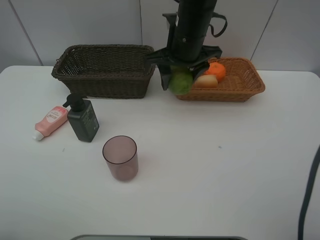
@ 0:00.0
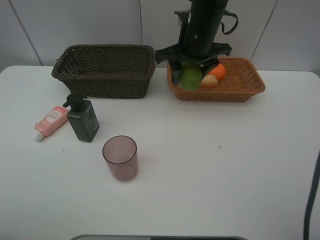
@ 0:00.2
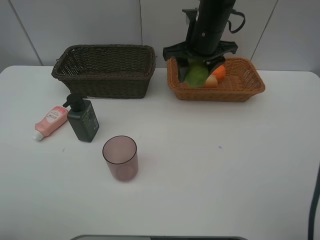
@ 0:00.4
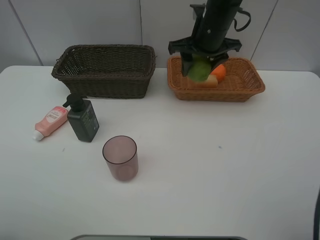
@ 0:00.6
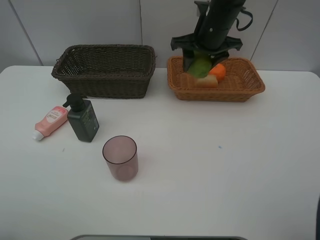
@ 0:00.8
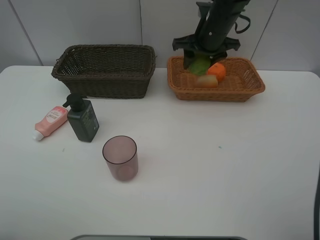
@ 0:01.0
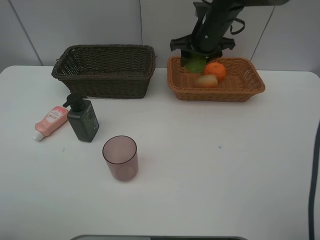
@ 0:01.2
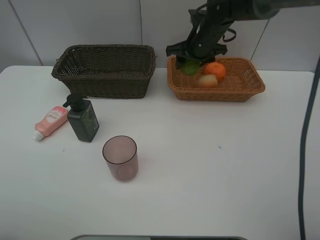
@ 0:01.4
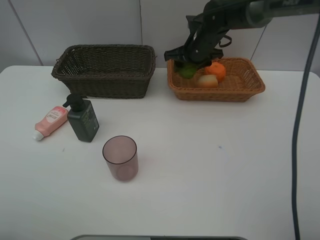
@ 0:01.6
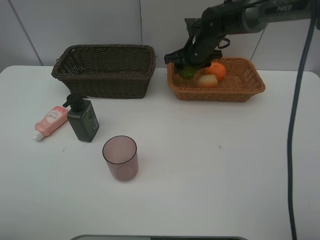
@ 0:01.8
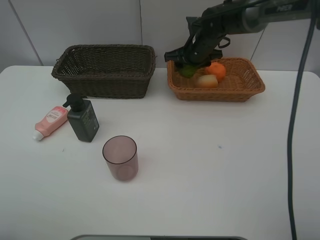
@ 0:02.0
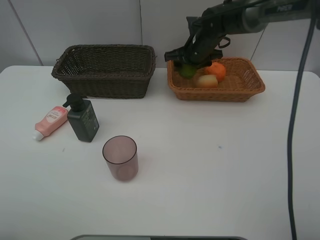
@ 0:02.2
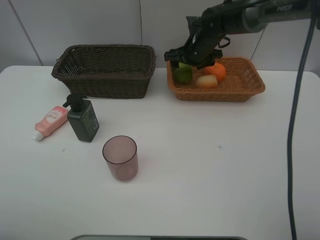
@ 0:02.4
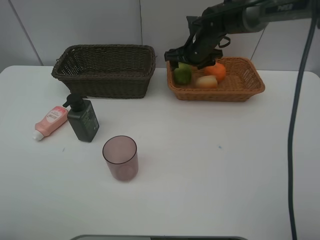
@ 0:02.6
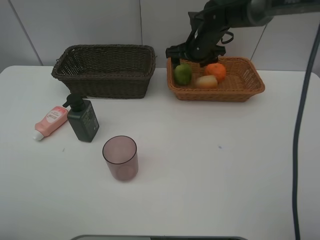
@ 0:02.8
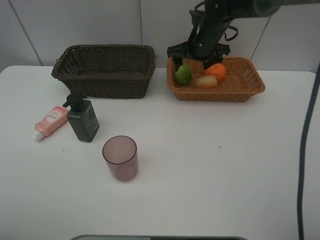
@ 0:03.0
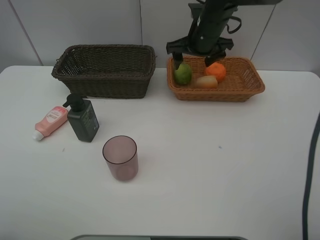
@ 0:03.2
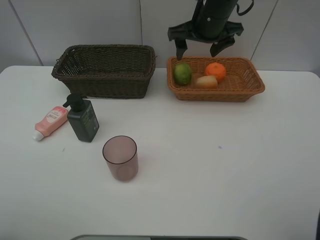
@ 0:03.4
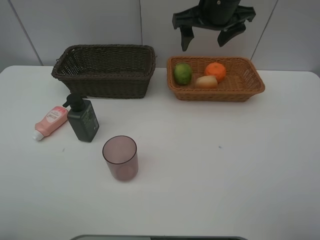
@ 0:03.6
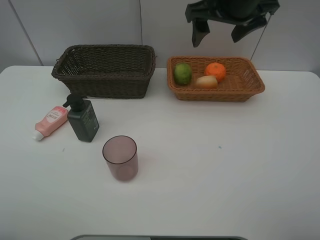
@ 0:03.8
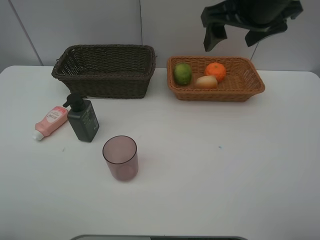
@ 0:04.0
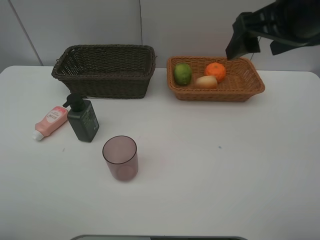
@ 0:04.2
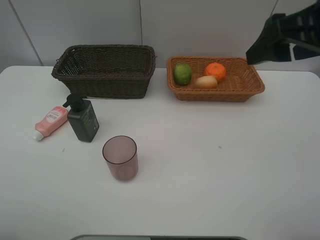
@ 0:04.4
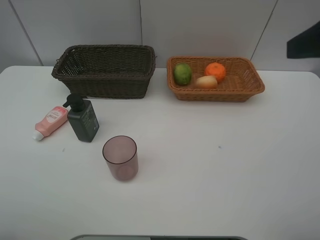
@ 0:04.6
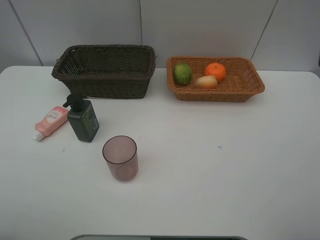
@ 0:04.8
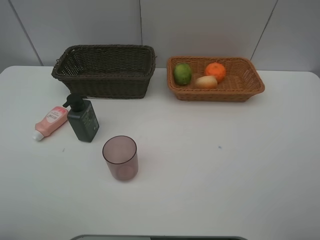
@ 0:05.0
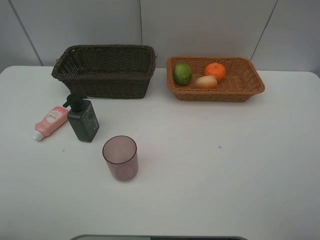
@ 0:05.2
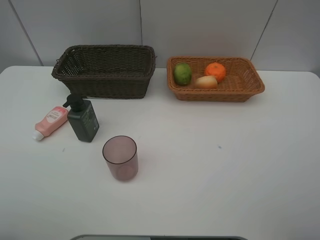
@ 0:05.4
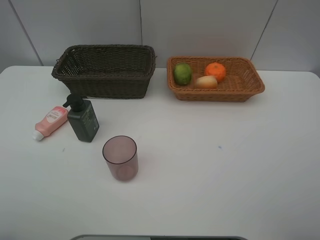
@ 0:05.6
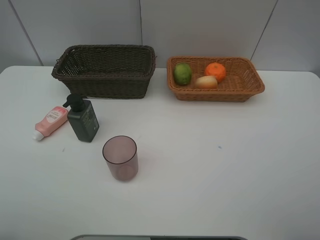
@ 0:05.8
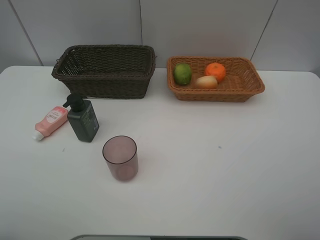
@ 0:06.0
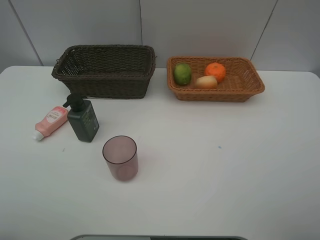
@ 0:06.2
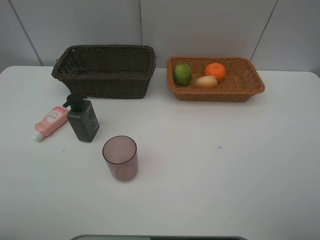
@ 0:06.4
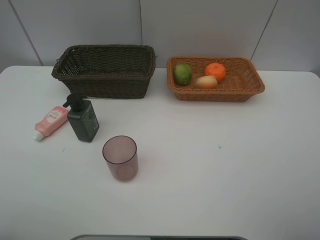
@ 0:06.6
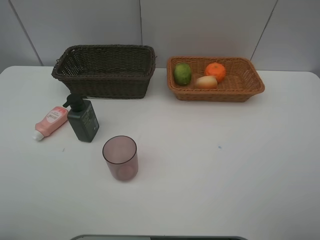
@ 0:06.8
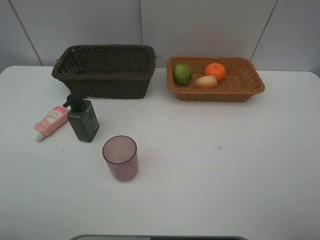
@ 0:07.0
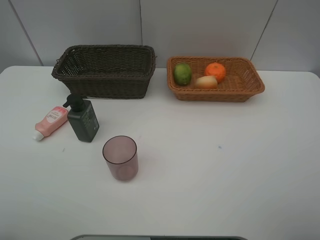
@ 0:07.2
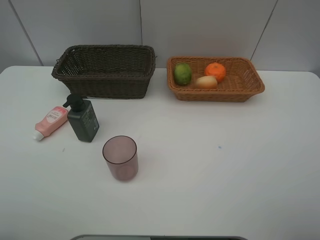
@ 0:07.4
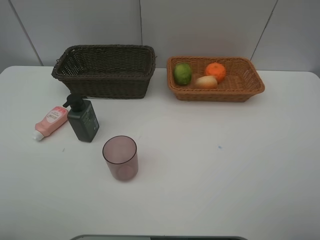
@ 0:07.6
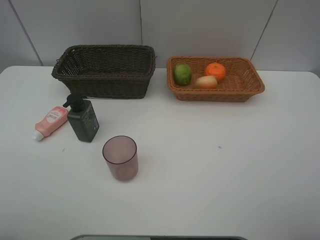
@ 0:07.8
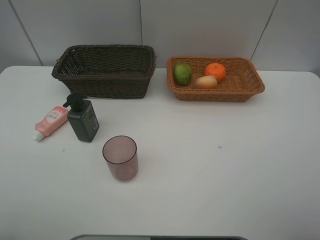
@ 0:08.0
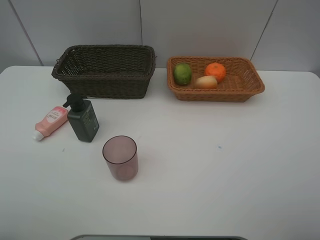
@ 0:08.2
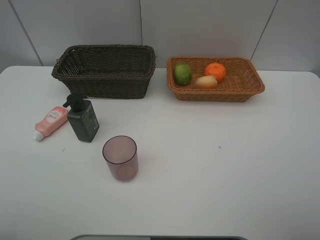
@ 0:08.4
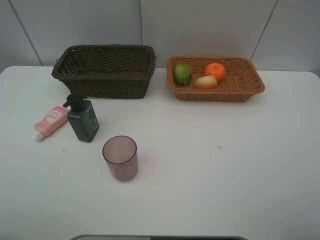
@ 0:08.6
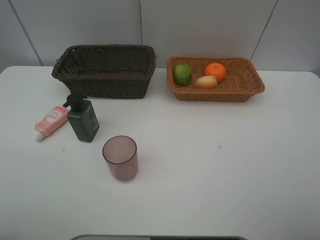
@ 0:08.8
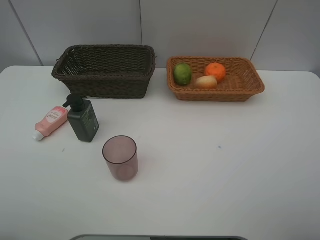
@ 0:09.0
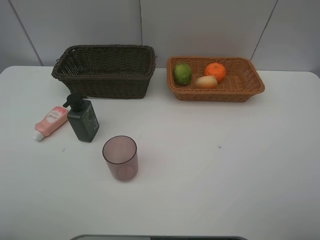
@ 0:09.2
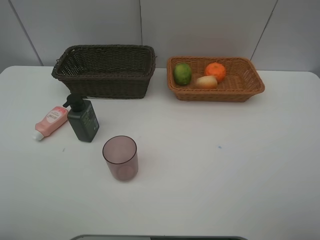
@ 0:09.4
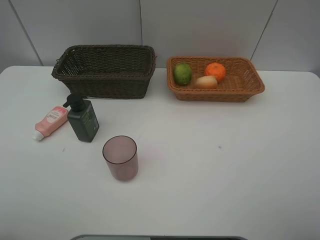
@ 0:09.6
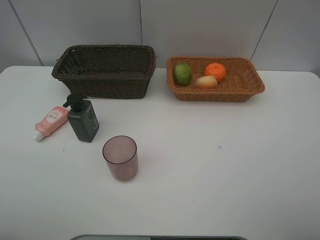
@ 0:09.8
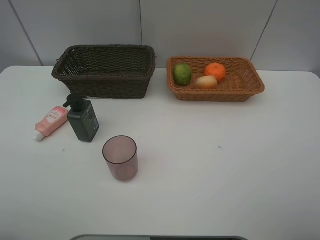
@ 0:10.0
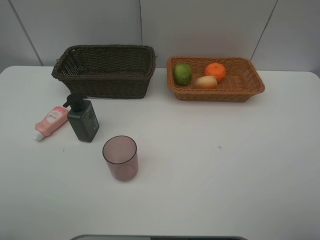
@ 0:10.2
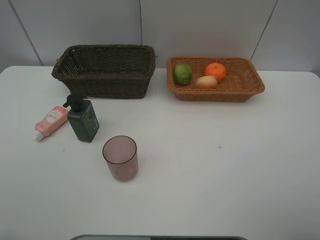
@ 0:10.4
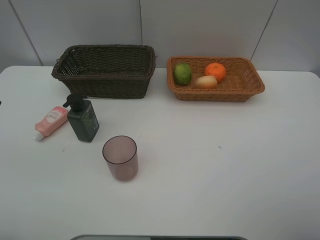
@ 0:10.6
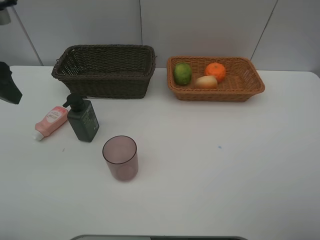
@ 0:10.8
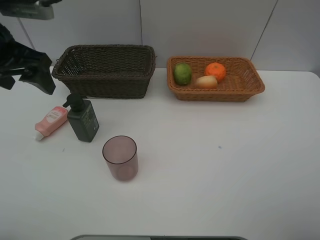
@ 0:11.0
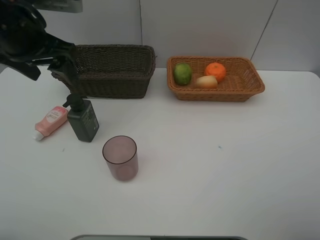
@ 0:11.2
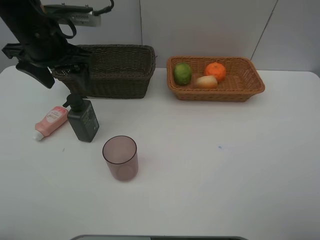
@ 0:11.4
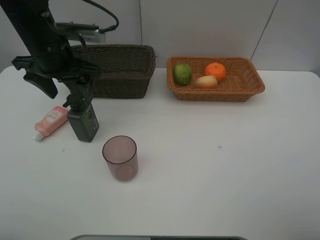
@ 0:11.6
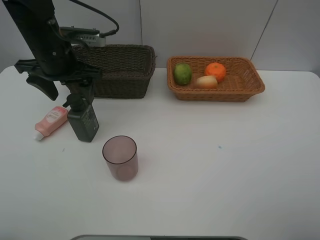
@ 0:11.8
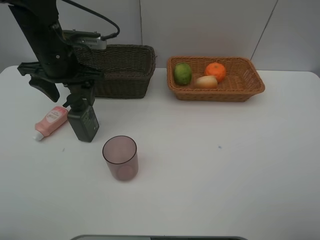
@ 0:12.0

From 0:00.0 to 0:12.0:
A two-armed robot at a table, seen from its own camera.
Task of the whole recording: place multiple objects separately in different baskets.
From 0:00.0 to 0:01.6: The right gripper moves forward, downward and to the right, about 15 cm.
From 0:01.6 to 0:03.0: The right gripper opens its fingers.
From 0:03.0 to 0:04.4: The right gripper travels backward, upward and to the right by approximately 30 cm.
From 0:04.4 to 0:06.0: The right gripper moves backward and to the right, roughly 20 cm.
From 0:10.4 to 0:12.0: The left gripper shifts some 25 cm forward and to the right.

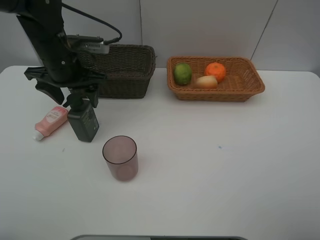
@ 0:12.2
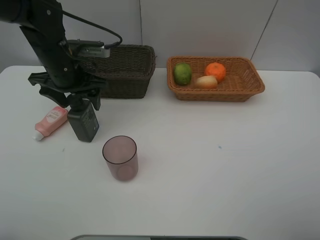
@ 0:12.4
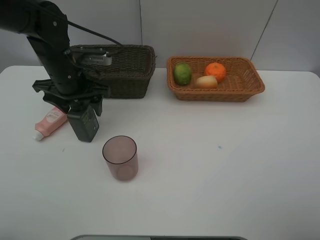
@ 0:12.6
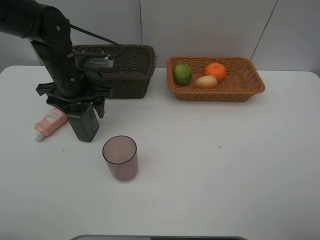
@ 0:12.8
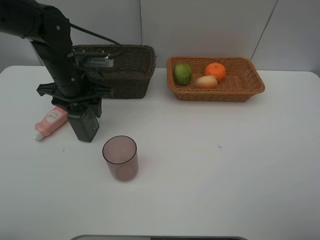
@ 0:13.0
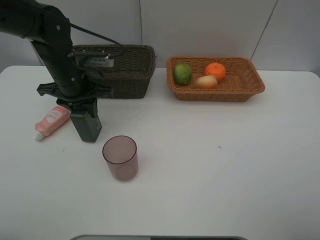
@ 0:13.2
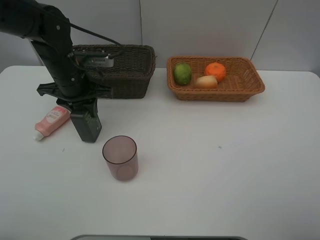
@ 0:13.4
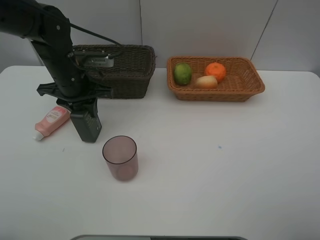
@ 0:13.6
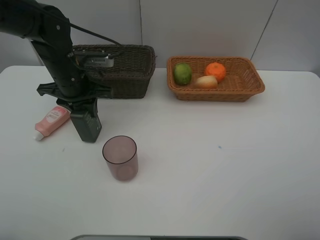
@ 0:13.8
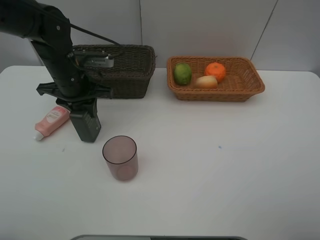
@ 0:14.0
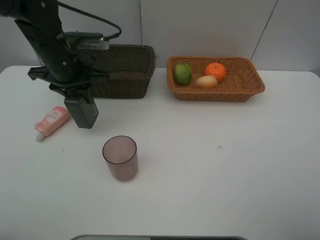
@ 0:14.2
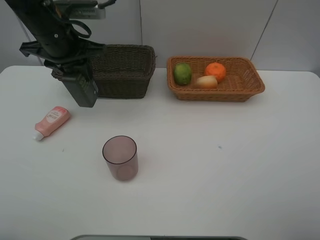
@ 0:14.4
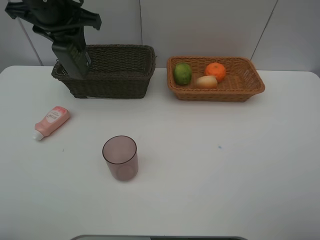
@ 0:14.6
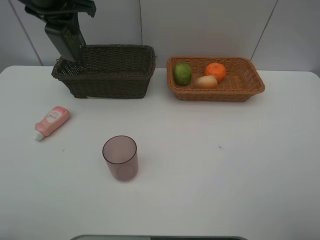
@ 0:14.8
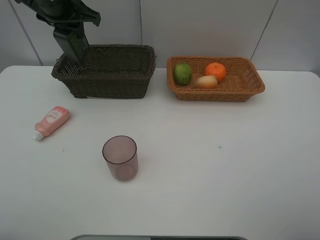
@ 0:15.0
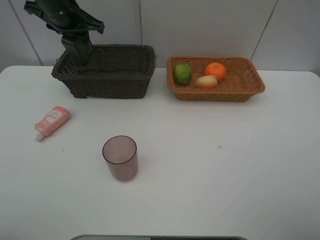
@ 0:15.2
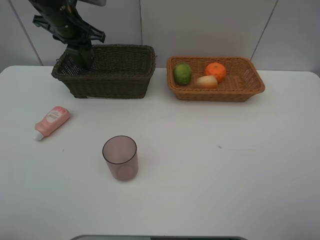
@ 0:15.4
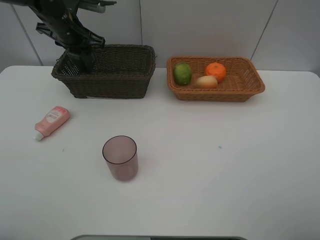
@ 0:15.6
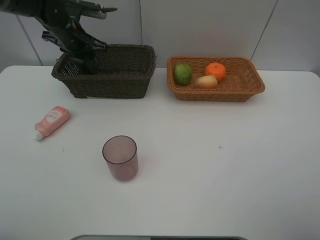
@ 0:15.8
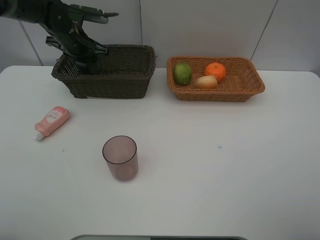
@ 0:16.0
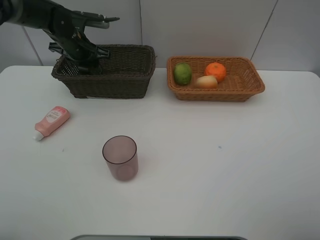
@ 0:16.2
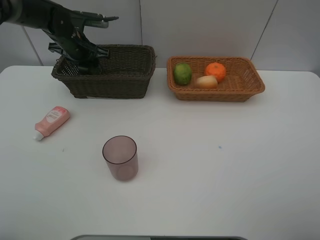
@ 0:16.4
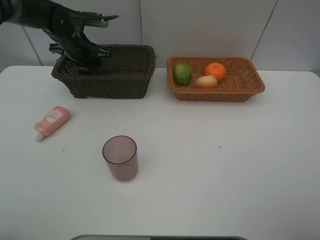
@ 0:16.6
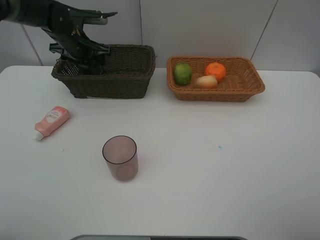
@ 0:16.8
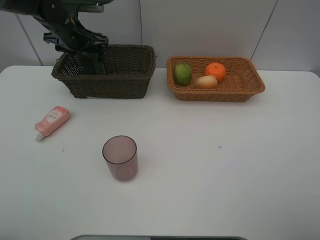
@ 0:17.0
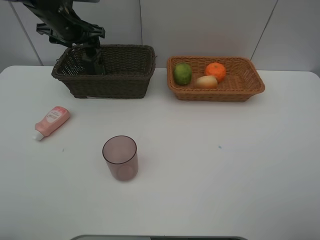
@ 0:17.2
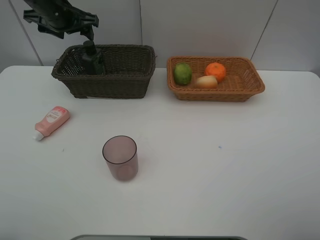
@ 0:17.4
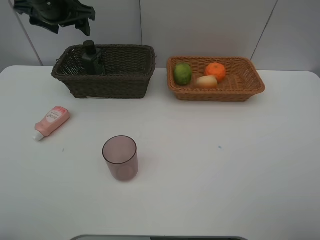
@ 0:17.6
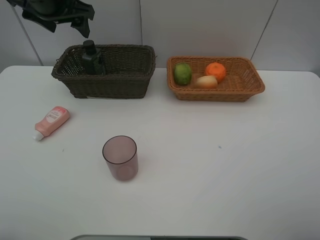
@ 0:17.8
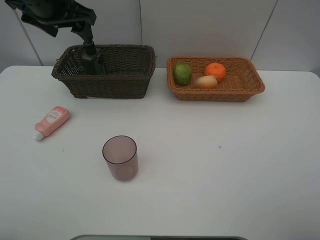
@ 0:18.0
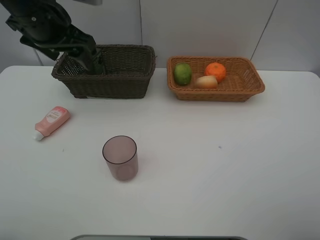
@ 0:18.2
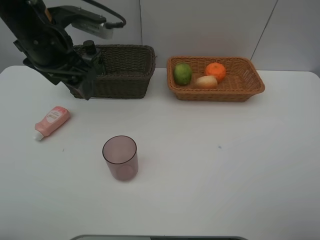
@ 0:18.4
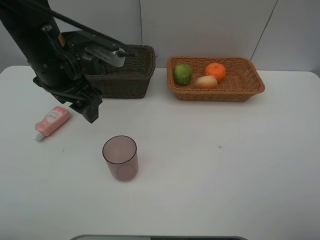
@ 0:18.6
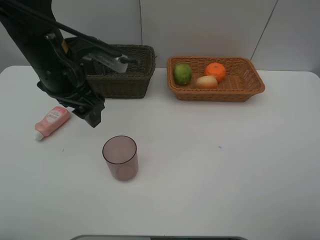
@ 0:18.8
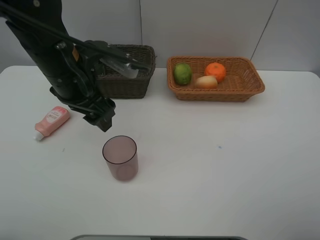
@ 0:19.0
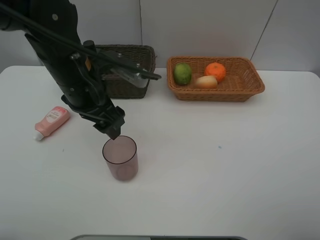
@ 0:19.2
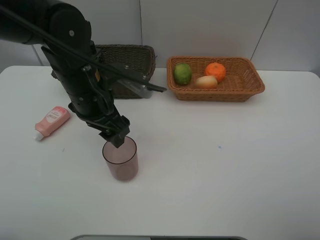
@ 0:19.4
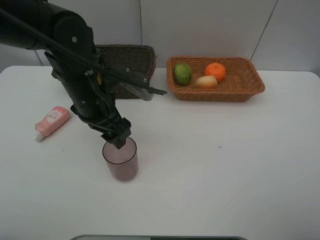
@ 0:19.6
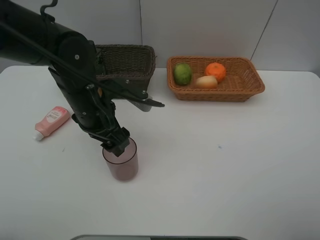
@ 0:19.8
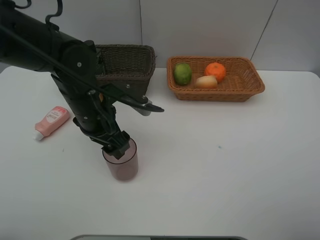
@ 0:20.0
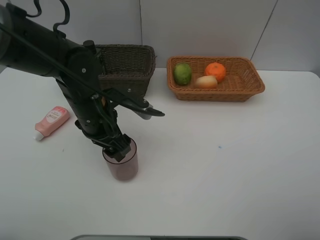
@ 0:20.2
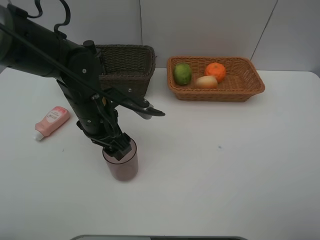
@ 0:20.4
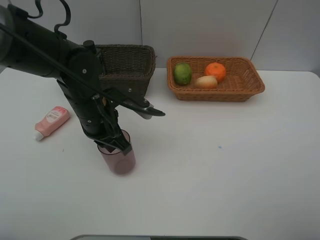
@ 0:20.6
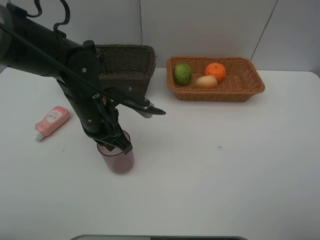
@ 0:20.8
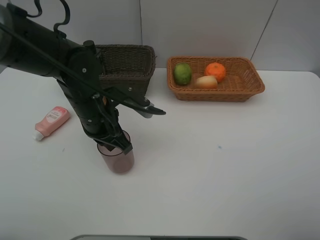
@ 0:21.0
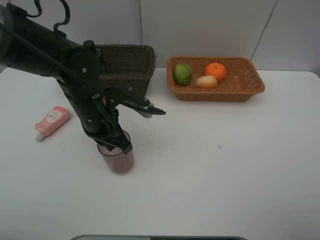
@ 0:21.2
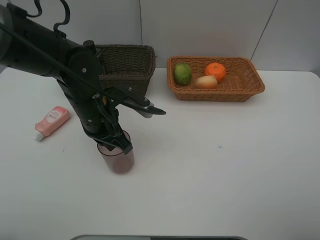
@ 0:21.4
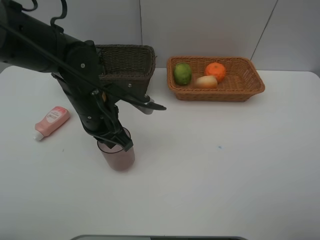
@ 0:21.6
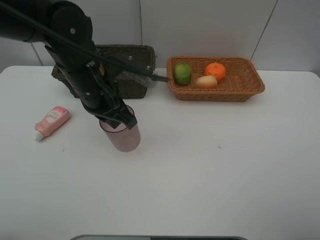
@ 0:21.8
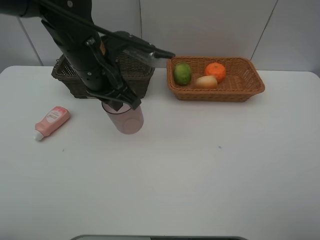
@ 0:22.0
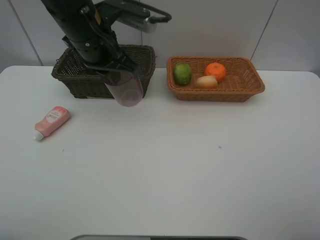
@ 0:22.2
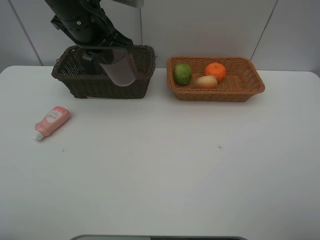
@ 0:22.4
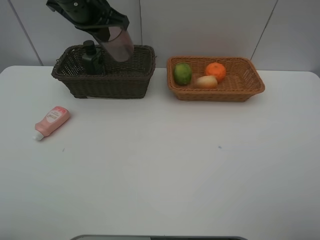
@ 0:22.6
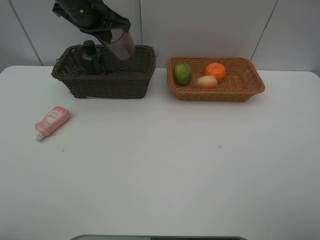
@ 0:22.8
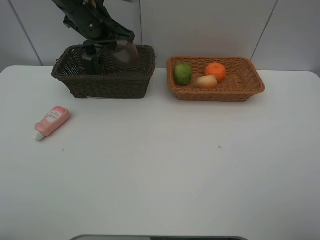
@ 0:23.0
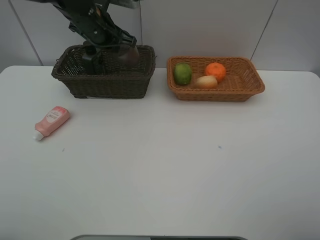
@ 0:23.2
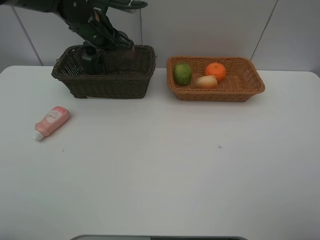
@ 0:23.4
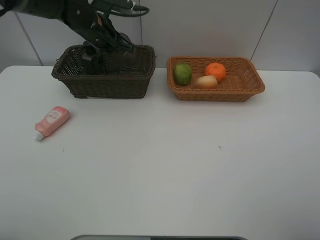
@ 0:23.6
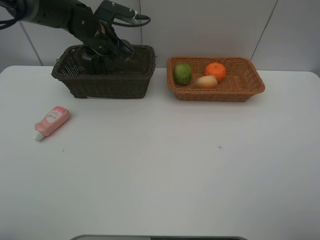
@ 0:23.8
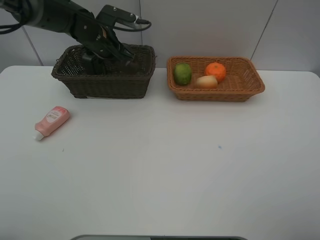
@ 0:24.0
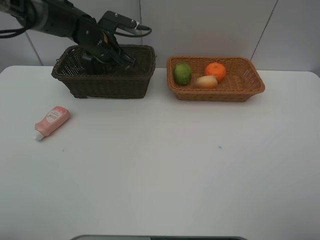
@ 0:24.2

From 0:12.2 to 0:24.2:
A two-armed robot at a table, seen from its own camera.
Task of the whole recording: place multiple objects separately in different baskets.
From 0:12.2 to 0:13.8: The left gripper closes its fingers.
From 0:13.8 to 0:15.2: The left gripper heads upward and forward, covering roughly 15 cm.
From 0:15.2 to 0:16.6: The left gripper travels downward by roughly 10 cm.
From 0:16.6 to 0:18.2: The left gripper travels backward and upward by approximately 20 cm.
From 0:18.2 to 0:19.8: The left gripper heads downward, to the right and backward, covering some 15 cm.
From 0:19.8 to 0:21.2: The left gripper closes up.
From 0:21.2 to 0:22.6: The left gripper heads upward and forward, covering approximately 20 cm.
From 0:22.6 to 0:24.2: The left gripper travels downward and forward by approximately 15 cm.
